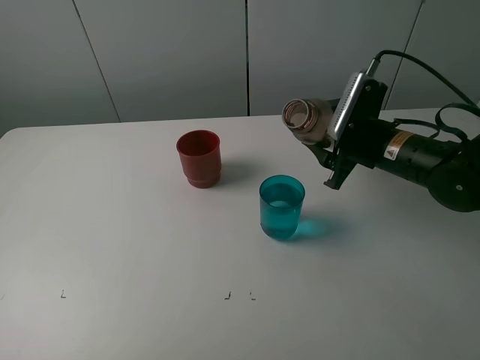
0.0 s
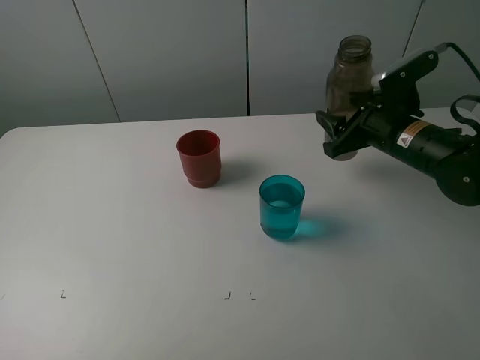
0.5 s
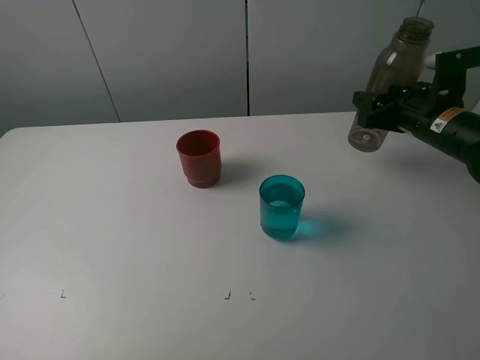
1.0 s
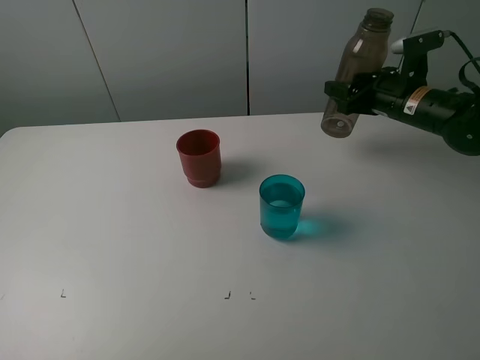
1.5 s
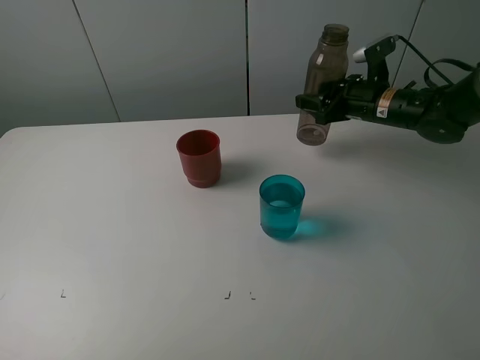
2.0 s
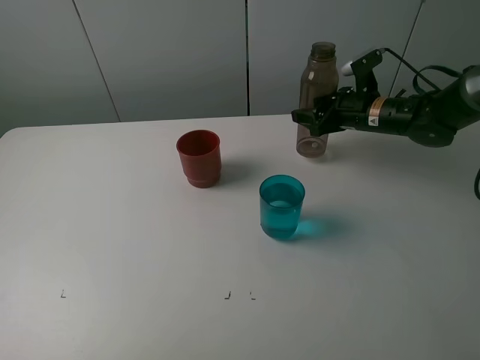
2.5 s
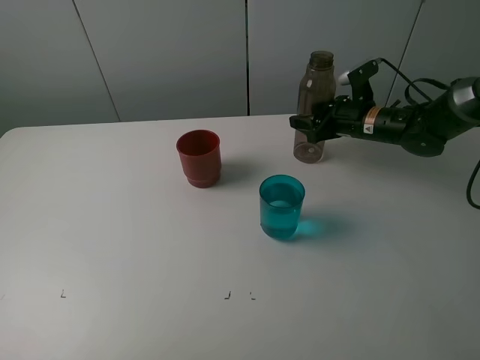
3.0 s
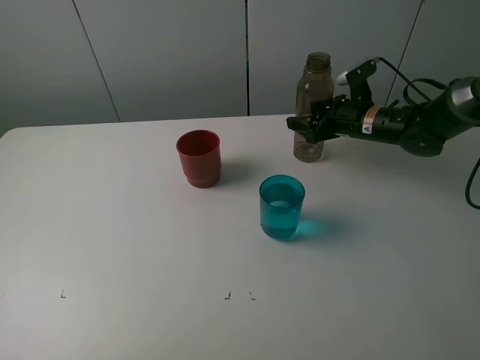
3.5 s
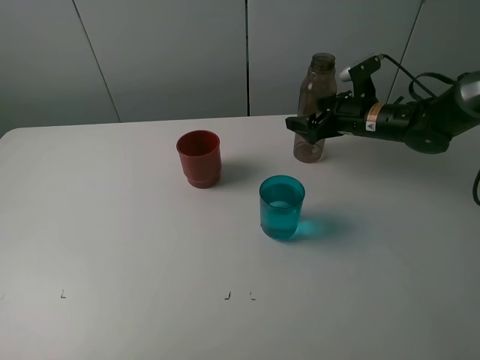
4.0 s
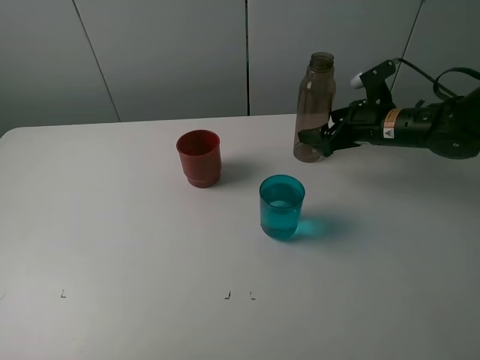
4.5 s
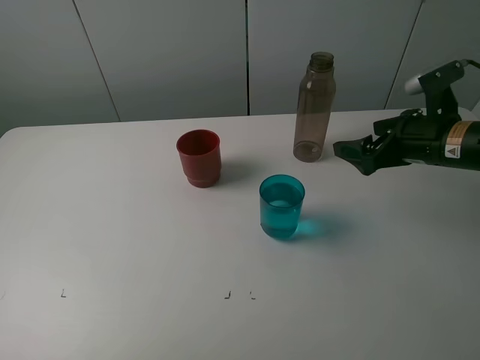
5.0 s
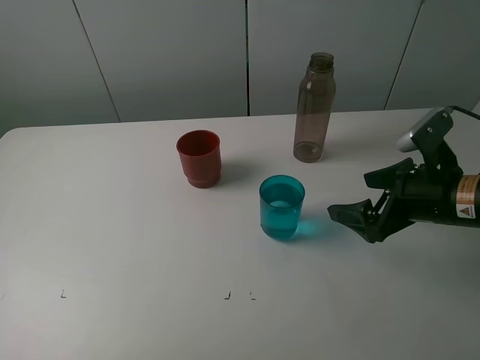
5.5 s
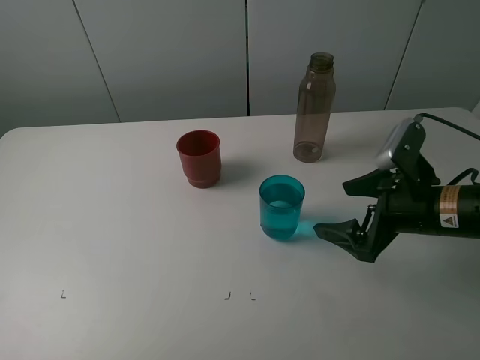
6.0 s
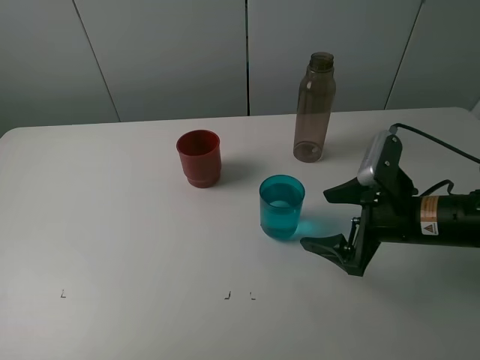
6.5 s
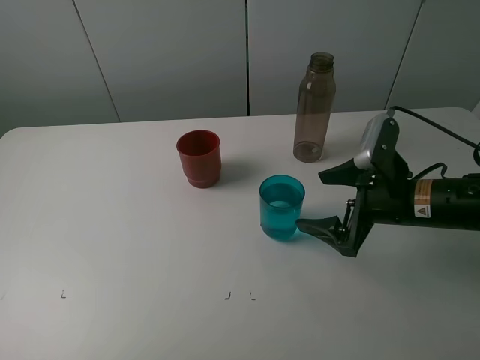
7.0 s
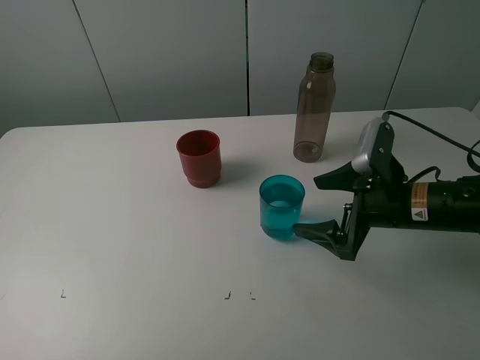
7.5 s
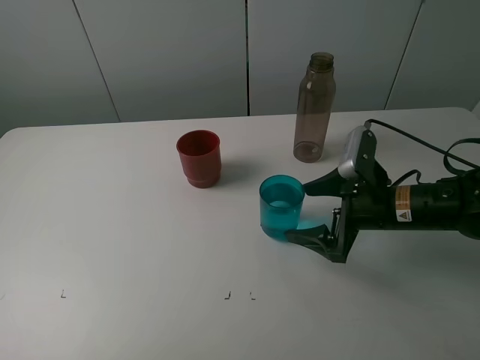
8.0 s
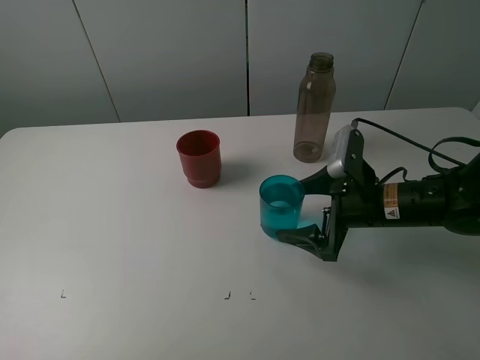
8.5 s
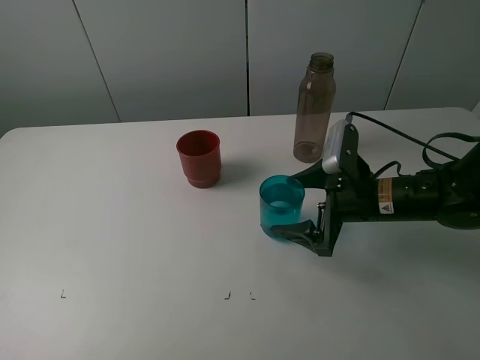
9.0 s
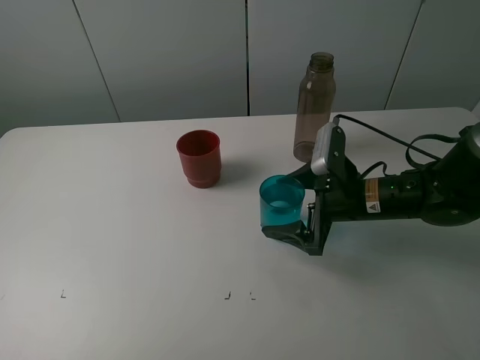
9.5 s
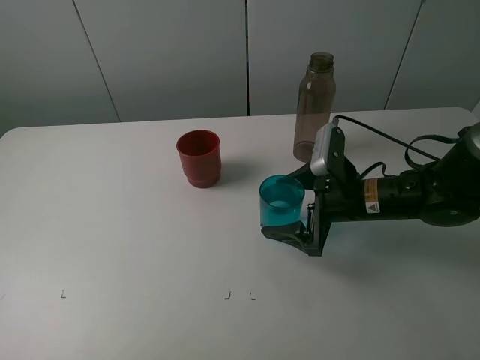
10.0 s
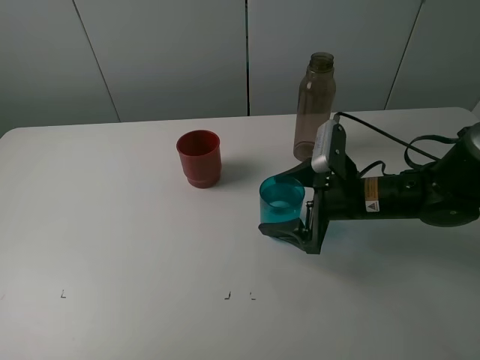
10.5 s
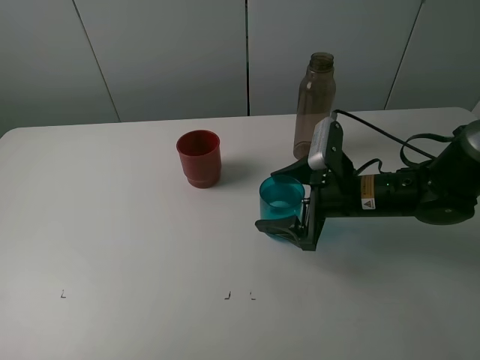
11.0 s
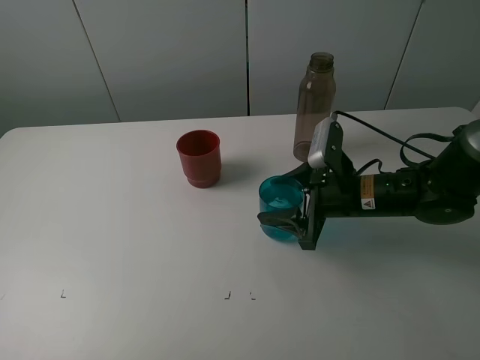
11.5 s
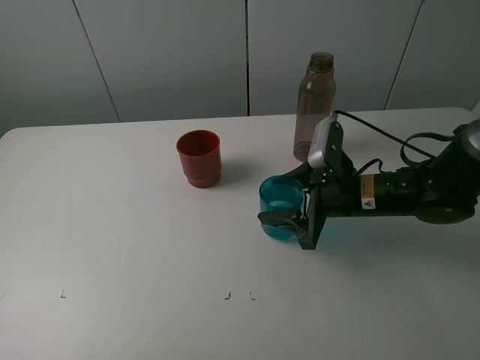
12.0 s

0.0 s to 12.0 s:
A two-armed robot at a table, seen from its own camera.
Task of the whole recording: pick up the bottle and pour water into the cup, then pick up the cup containing water and pour it into another cup.
Step, 0.0 to 3.5 s: Place the brown bottle with the right gripper.
Step, 4.0 to 11.5 s: Grasp the blue cup with the right gripper.
0.0 to 2.0 s: The right gripper is displaced forward by approximately 10 cm.
2.0 to 4.0 s: The right gripper opens its fingers.
4.0 to 6.0 s: The right gripper goes some 20 cm backward.
6.0 to 8.0 s: The right gripper changes place by roughly 5 cm.
8.0 to 10.0 s: The grippers stay close to where they were, moving slightly.
10.0 to 12.0 s: The right gripper closes up.

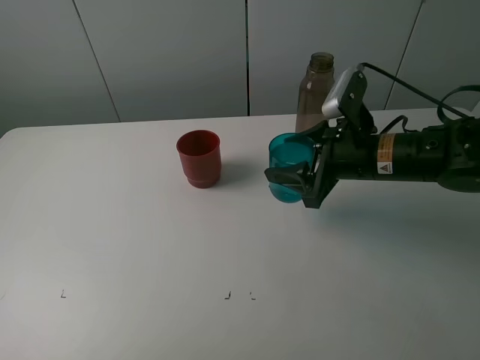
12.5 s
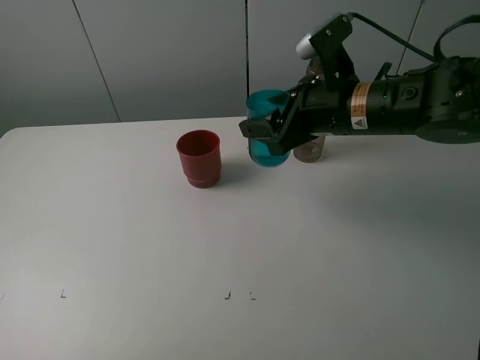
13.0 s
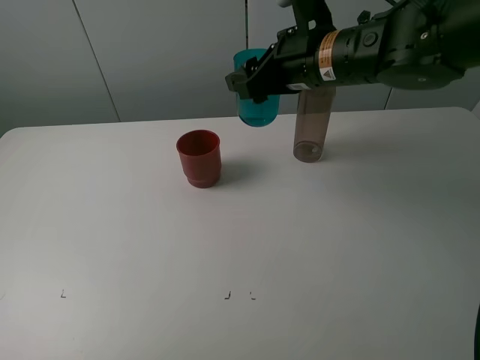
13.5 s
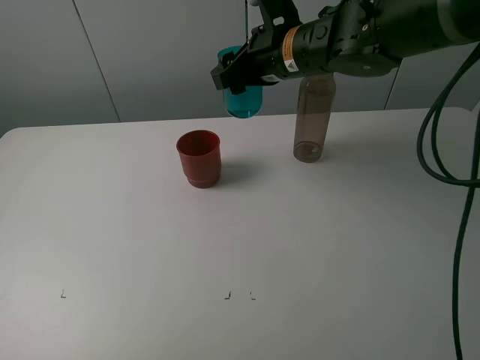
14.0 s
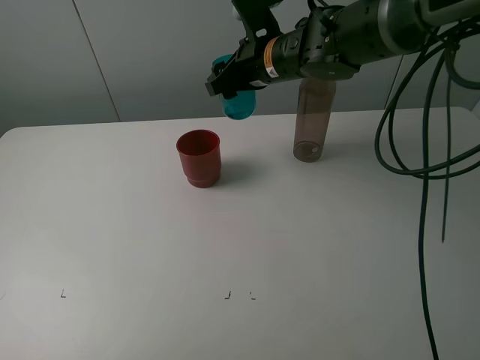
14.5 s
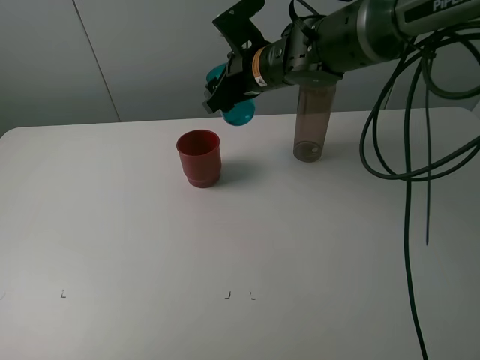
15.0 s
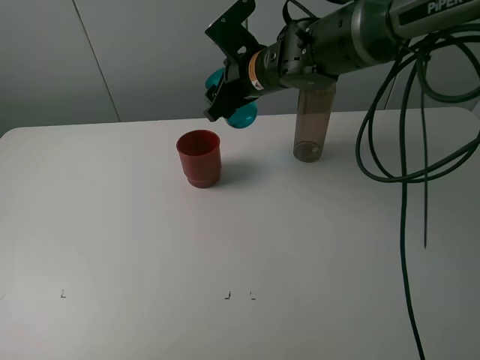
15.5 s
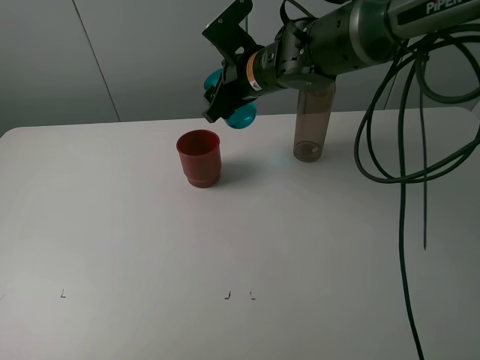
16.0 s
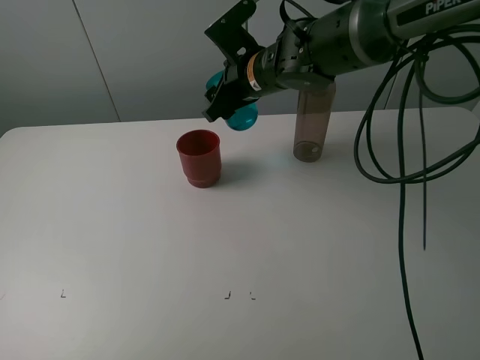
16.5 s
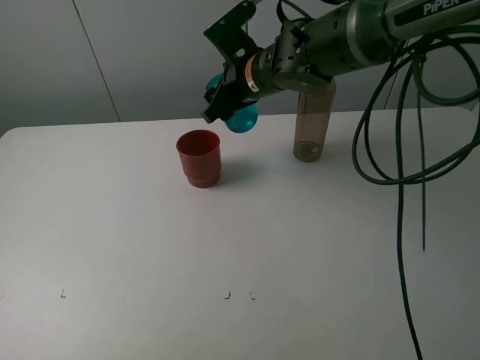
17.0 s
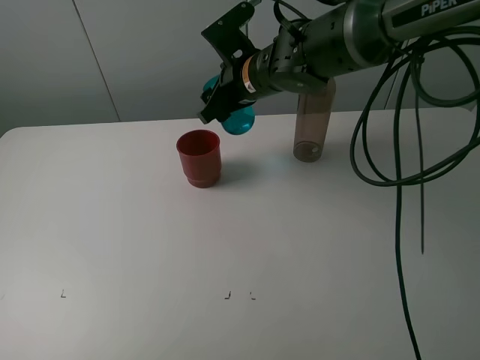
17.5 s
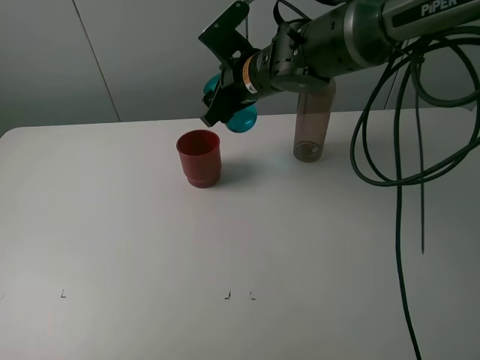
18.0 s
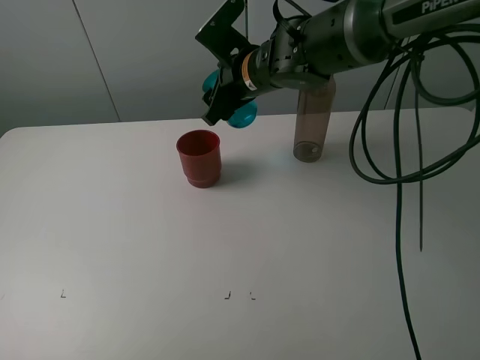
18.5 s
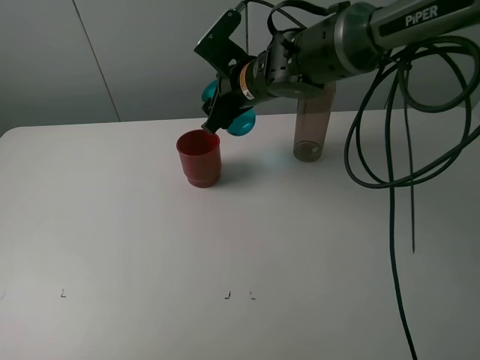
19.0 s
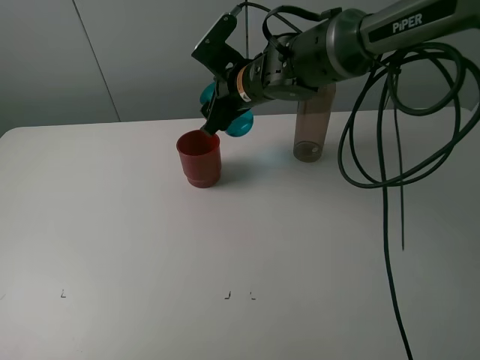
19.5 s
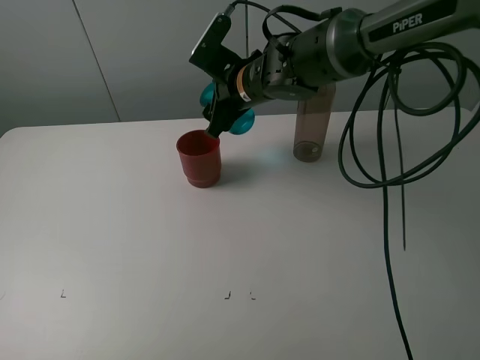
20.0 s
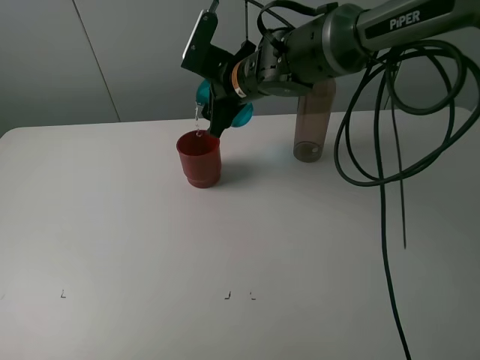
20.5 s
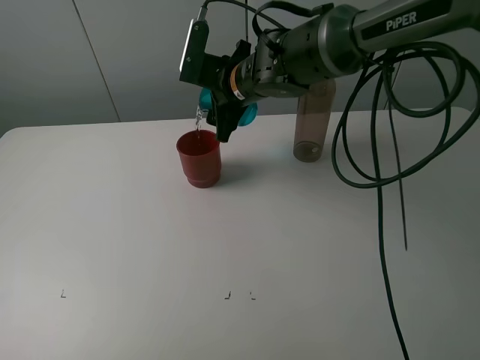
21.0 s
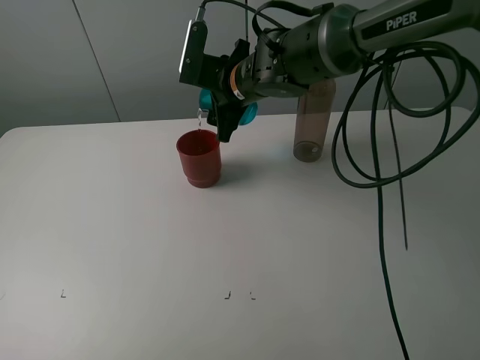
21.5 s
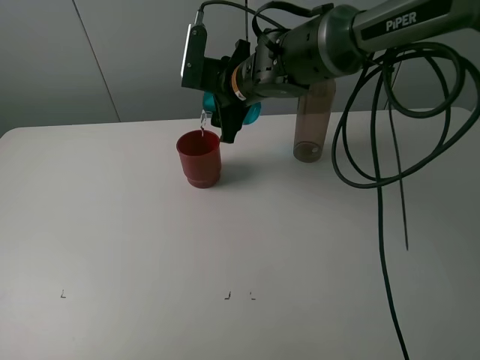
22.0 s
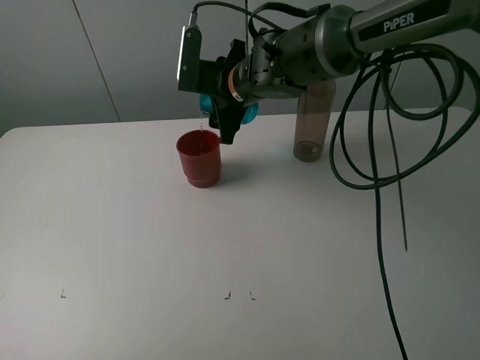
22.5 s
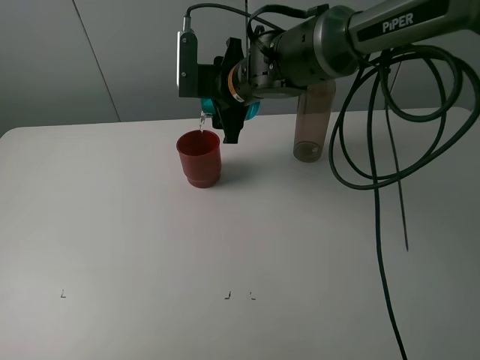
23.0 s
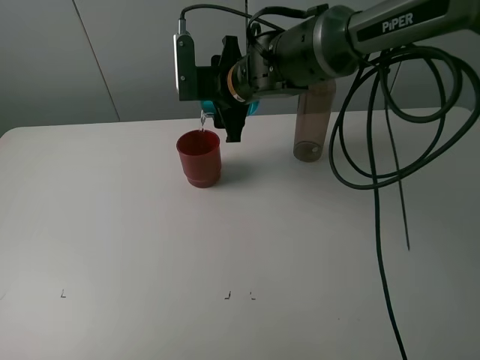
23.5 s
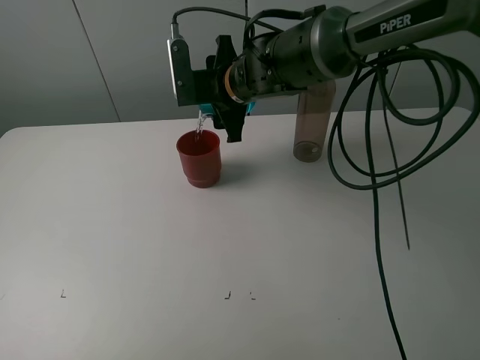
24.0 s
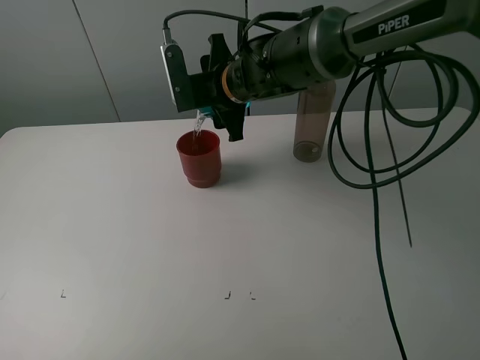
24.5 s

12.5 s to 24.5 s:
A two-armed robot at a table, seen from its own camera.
Task of the whole recording: pick up the bottle and pour water into the cup, then pick up the cup containing water and pour it into another cup.
12.5 to 14.5 s: The right gripper goes approximately 20 cm forward, to the left and upward.
14.5 to 16.5 s: There are only small adjustments of the grippers.
16.5 to 18.5 s: There are only small adjustments of the grippers.
18.5 to 20.5 s: There are only small adjustments of the grippers.
20.5 to 22.5 s: The grippers stay close to where they were, moving slightly.

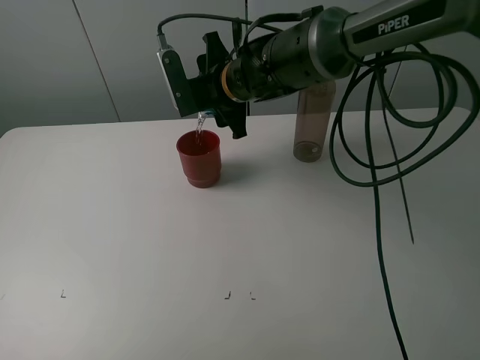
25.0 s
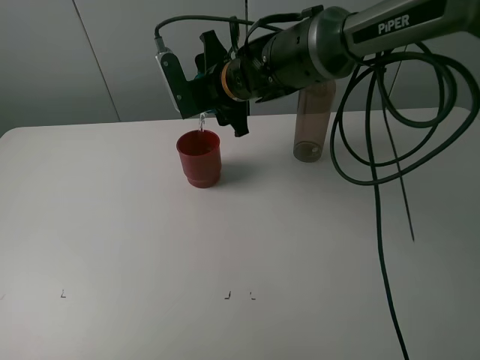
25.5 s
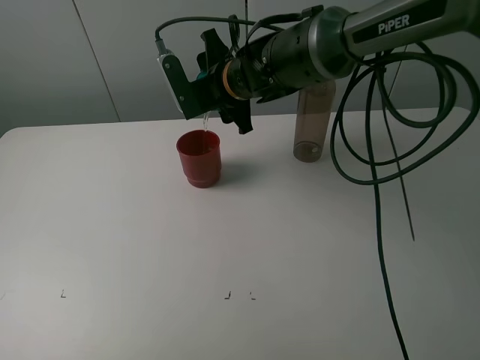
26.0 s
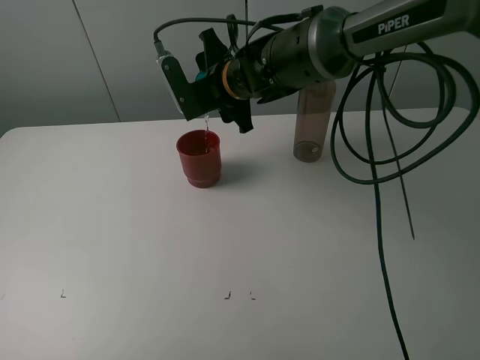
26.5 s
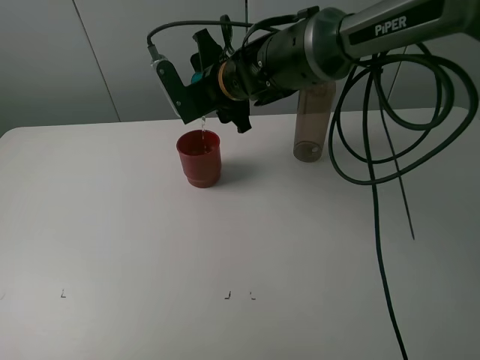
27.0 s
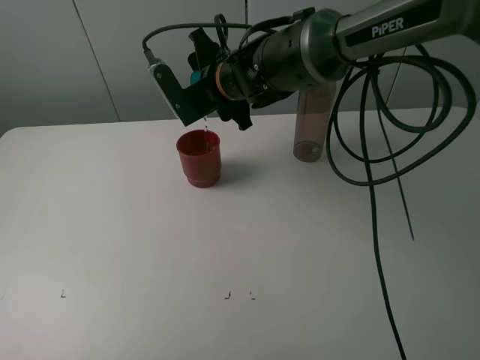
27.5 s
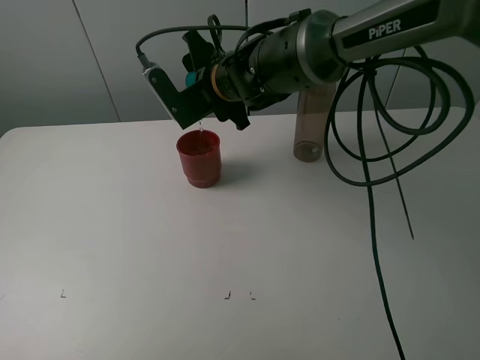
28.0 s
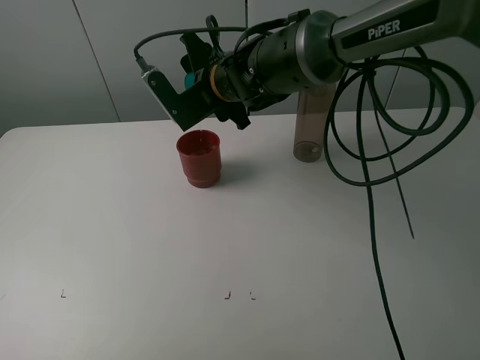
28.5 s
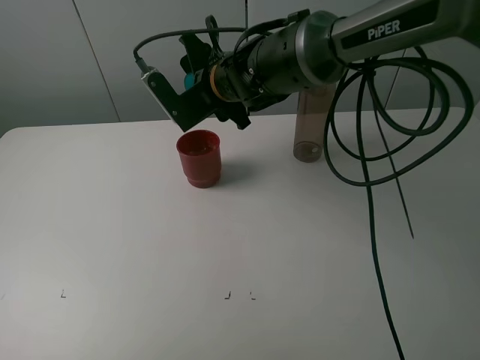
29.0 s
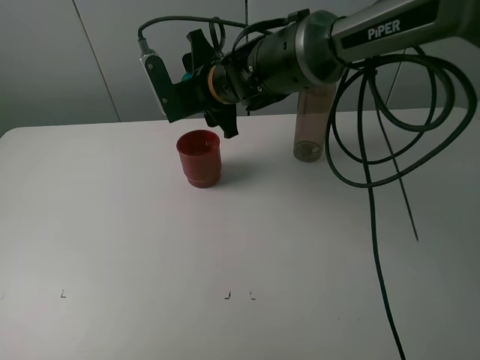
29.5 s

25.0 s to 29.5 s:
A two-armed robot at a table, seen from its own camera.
Task of the whole recording: pick up the bottle and pour water into the cup, then pick up the cup containing water and pour it into another cup.
25.0 to 29.5 s: The grippers stay close to where they were, moving slightly.
